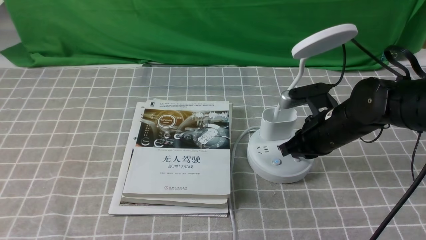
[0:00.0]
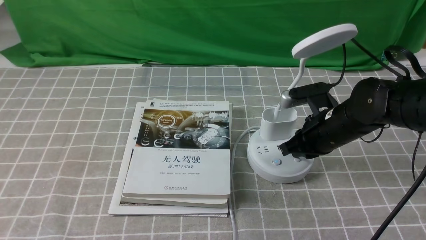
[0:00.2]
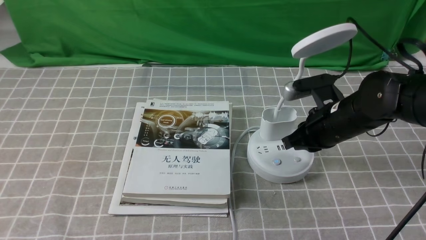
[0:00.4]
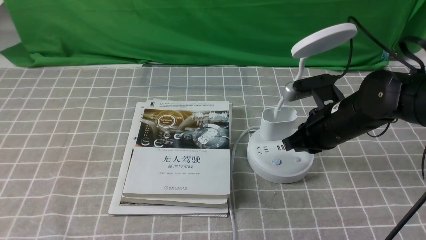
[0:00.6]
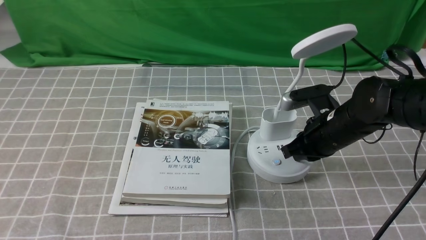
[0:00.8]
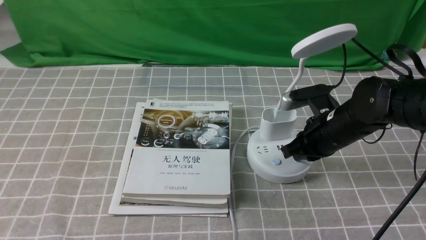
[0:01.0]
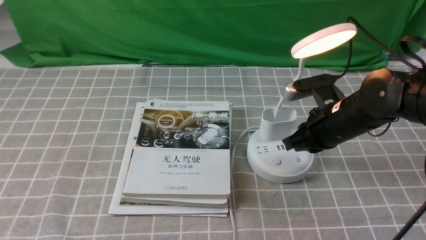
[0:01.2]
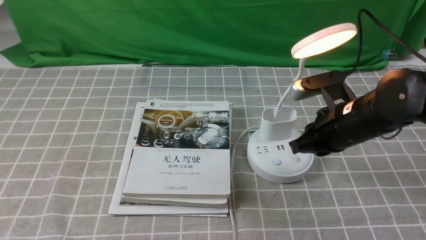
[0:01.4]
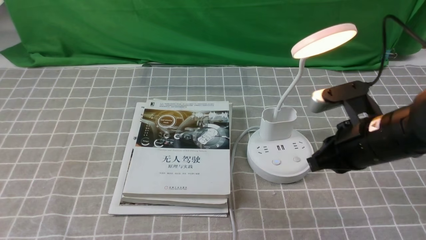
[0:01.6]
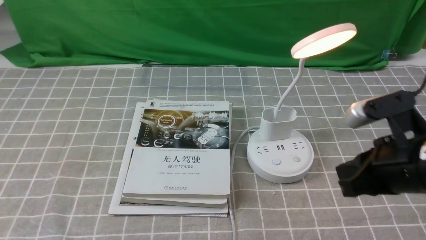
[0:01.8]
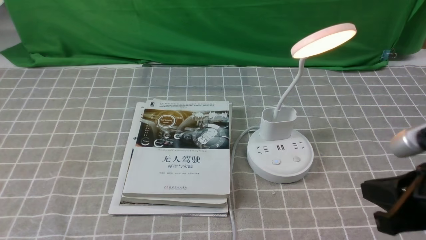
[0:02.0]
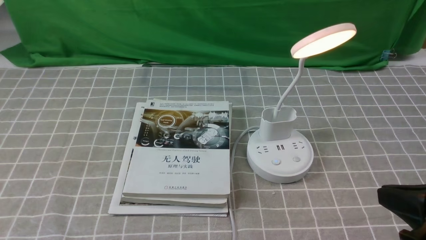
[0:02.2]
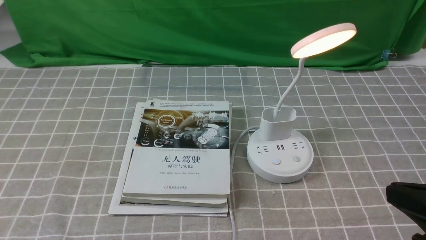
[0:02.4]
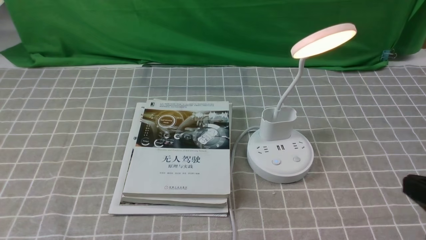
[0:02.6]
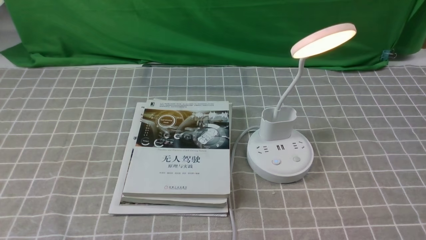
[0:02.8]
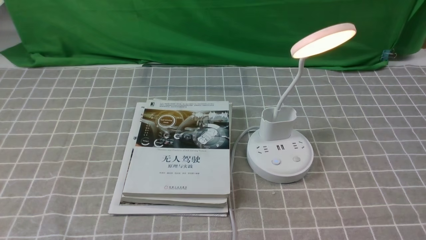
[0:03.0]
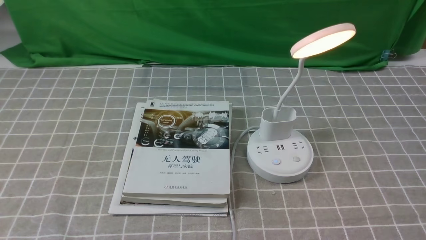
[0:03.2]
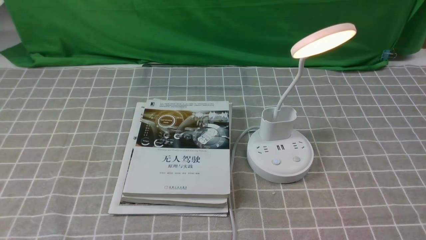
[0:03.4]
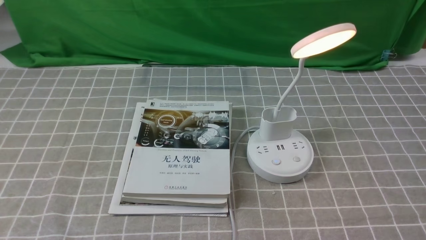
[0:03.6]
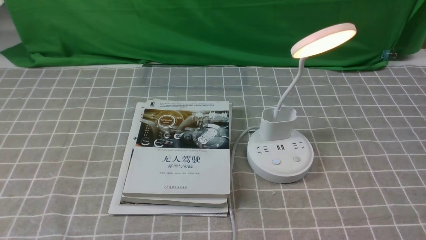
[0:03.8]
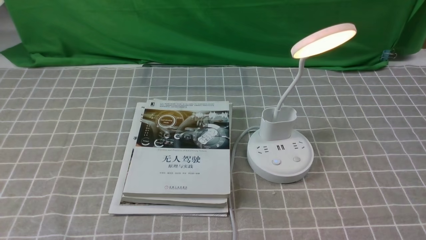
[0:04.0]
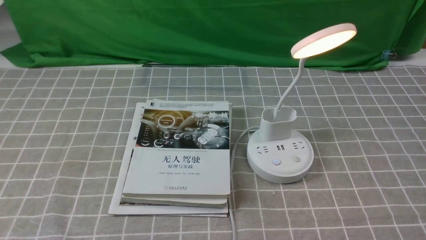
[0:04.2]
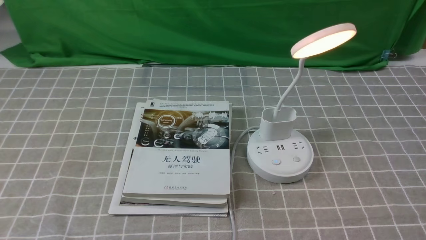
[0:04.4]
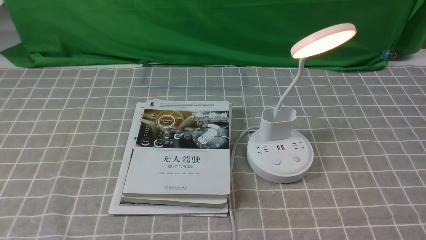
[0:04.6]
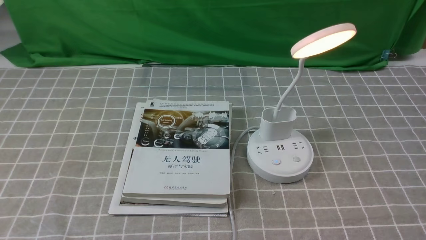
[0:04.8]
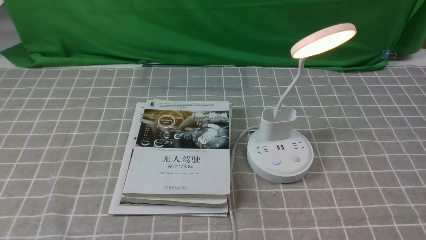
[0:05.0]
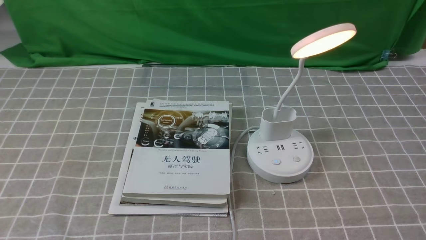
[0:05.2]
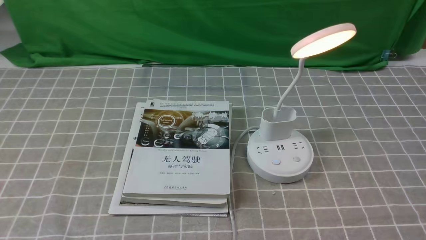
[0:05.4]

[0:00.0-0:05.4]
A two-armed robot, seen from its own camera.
0:00.0 to 0:01.4: The right gripper moves some 5 cm.
0:01.4 to 0:02.8: The right gripper travels backward and to the right by about 25 cm.
